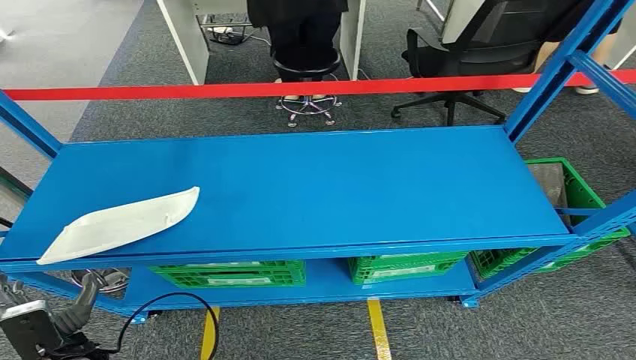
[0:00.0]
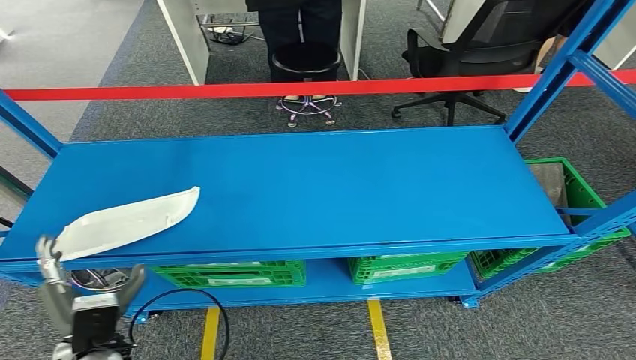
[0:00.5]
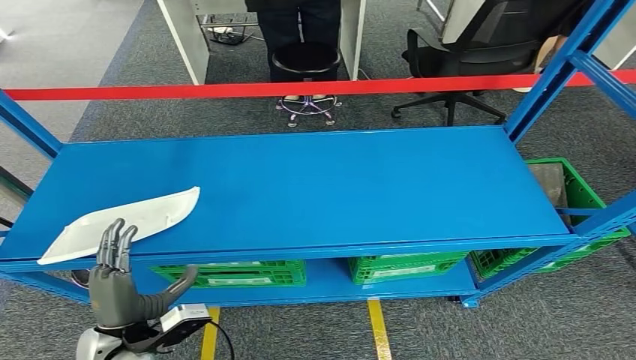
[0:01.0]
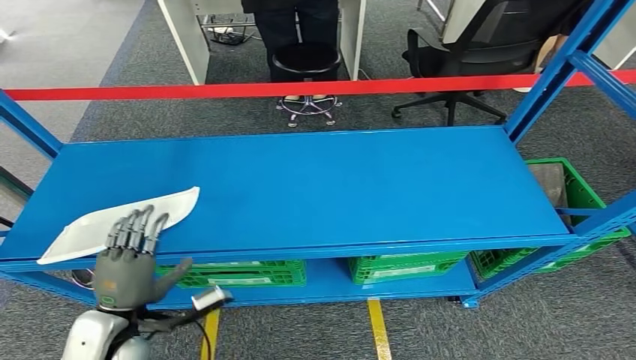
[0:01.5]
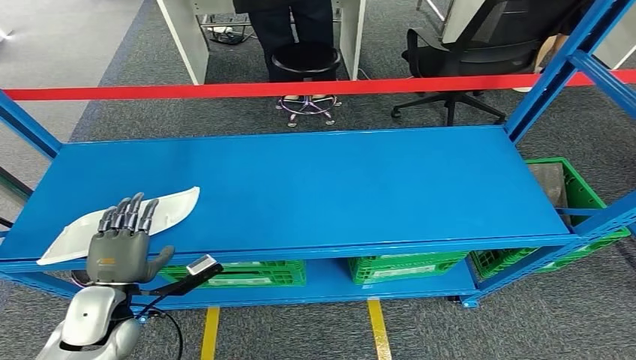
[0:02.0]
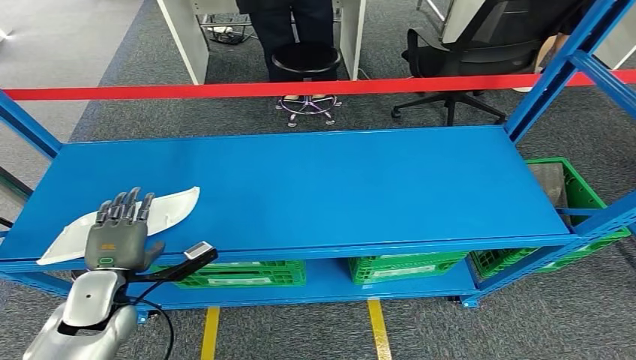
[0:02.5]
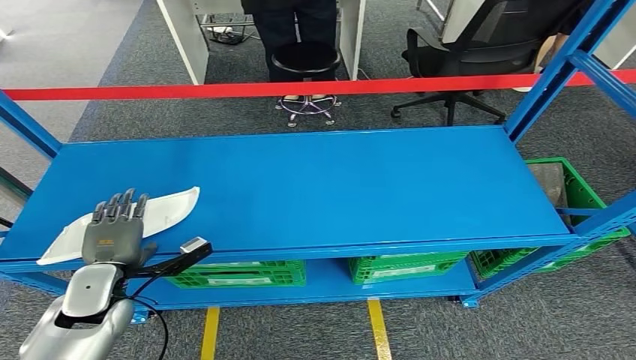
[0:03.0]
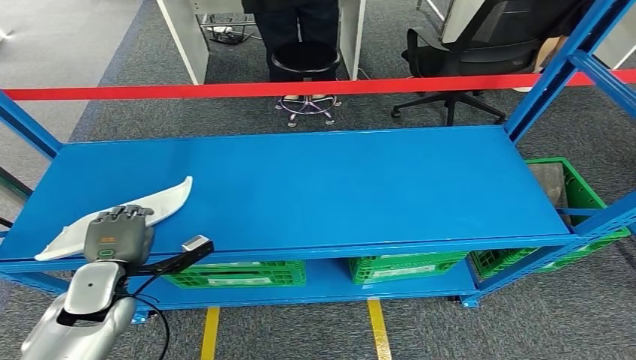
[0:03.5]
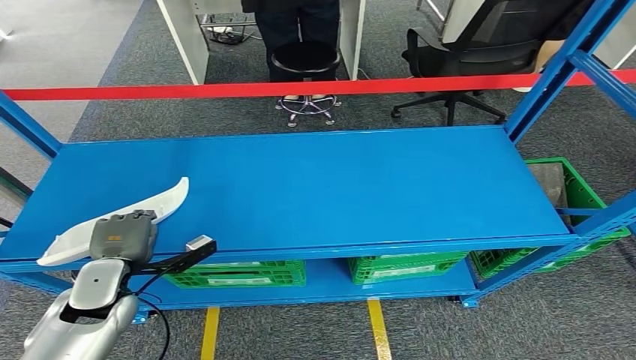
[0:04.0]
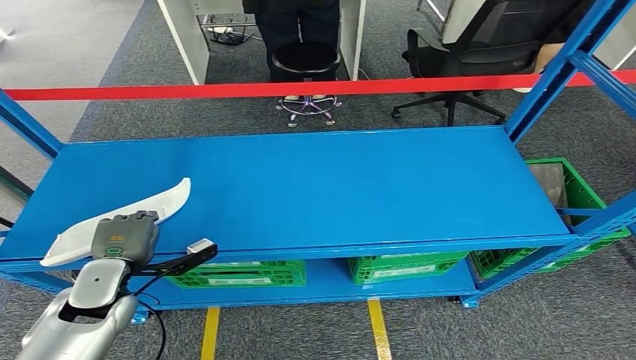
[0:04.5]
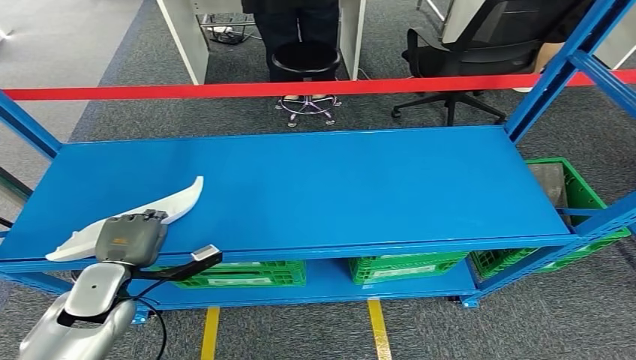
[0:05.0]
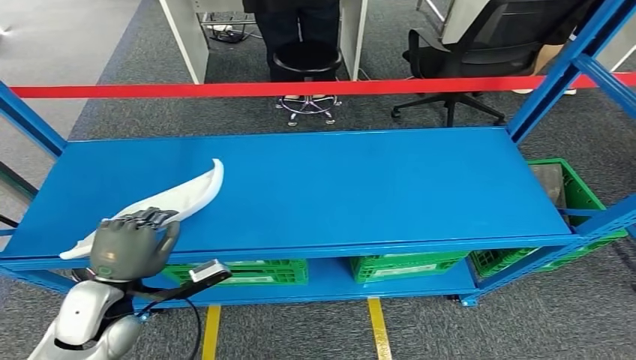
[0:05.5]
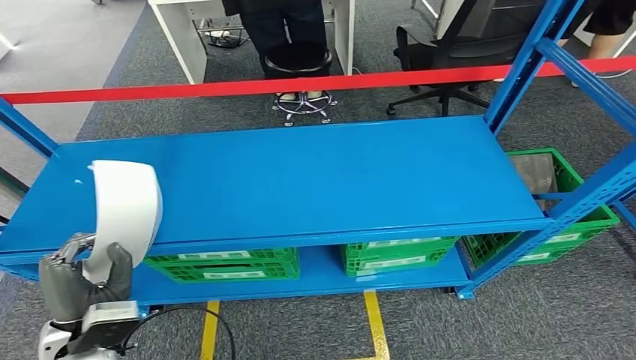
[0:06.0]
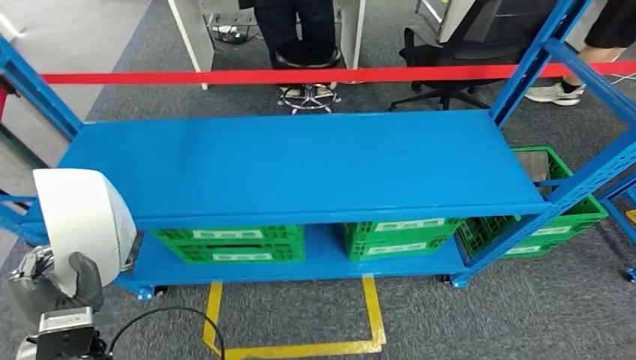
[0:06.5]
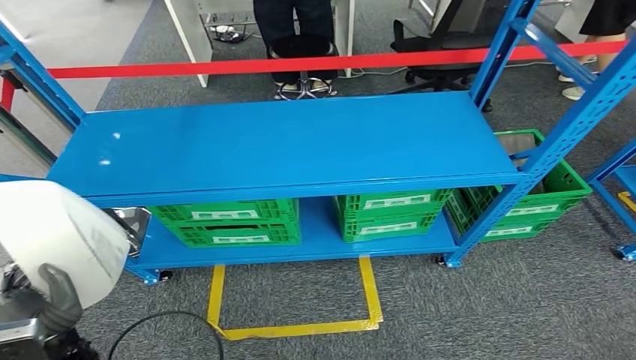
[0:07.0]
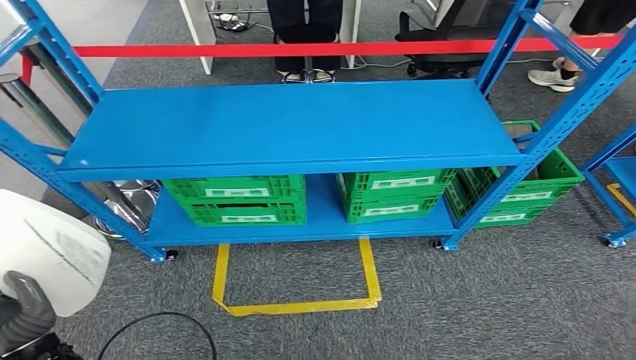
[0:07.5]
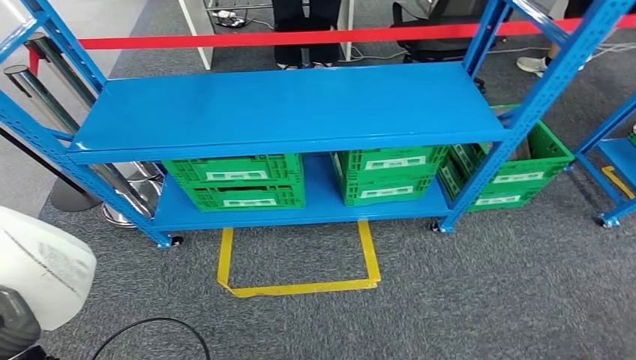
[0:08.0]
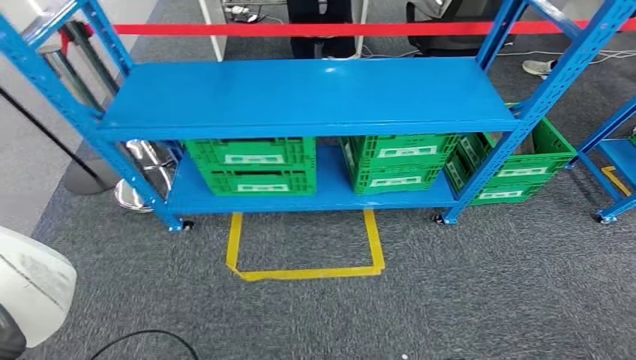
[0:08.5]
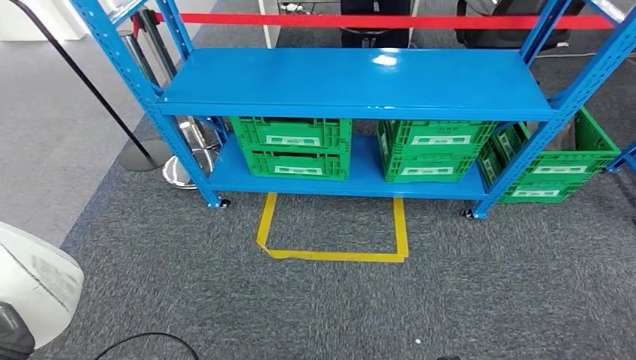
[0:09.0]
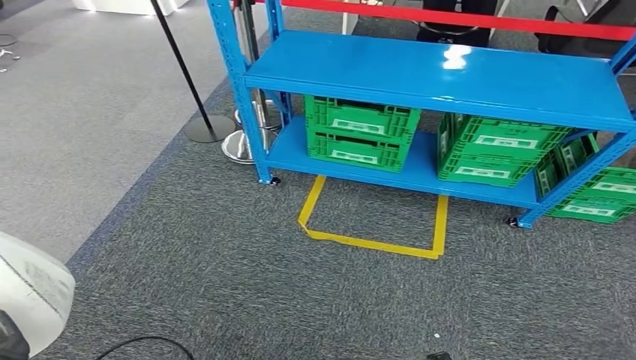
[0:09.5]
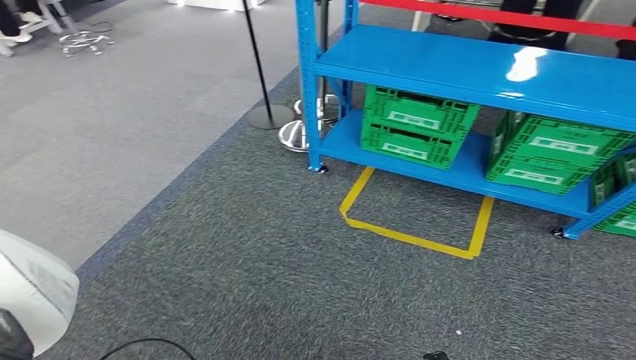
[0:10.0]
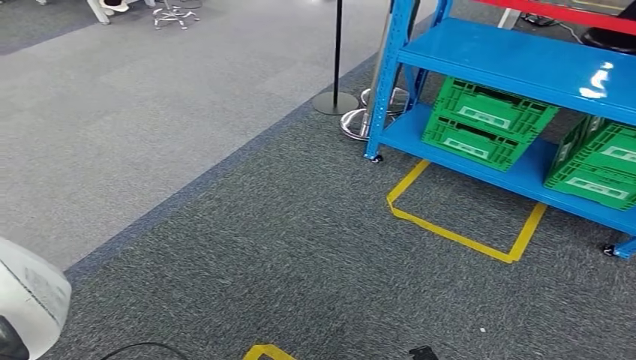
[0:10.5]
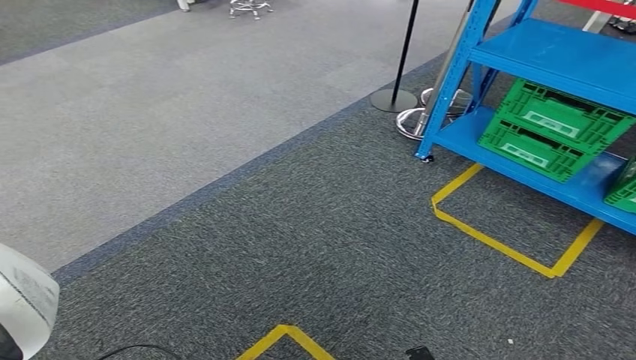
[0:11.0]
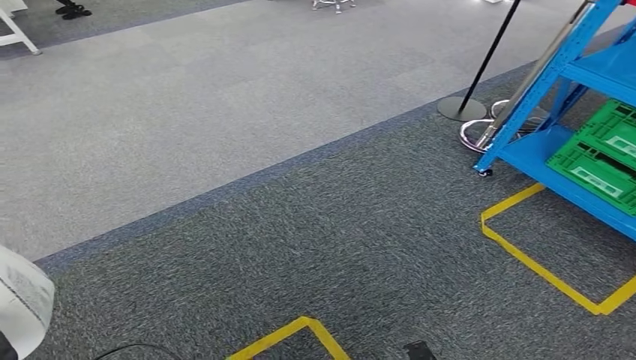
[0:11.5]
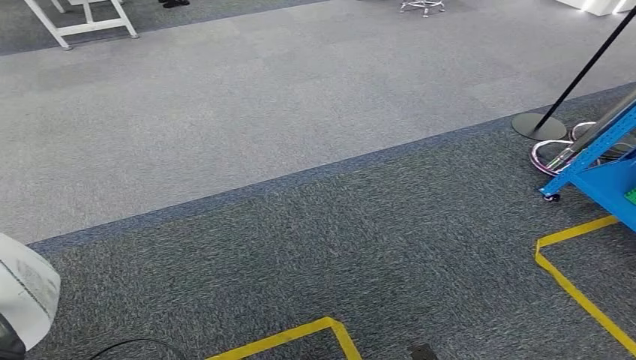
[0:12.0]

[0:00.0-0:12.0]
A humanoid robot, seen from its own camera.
Step, 0:00.0 to 0:06.0: Pick up the small component from the shelf.

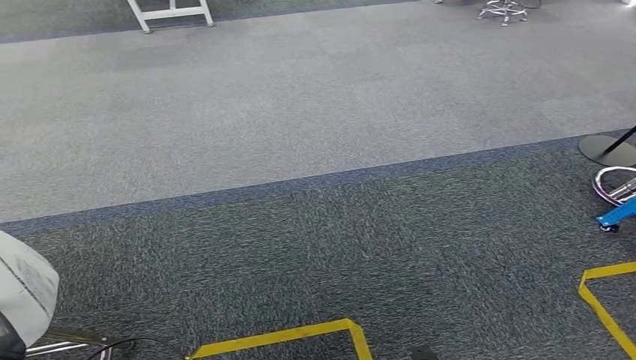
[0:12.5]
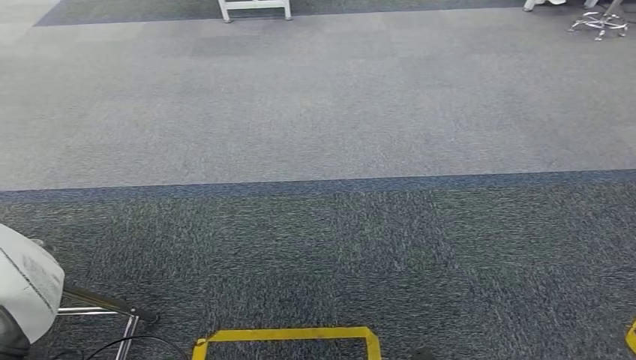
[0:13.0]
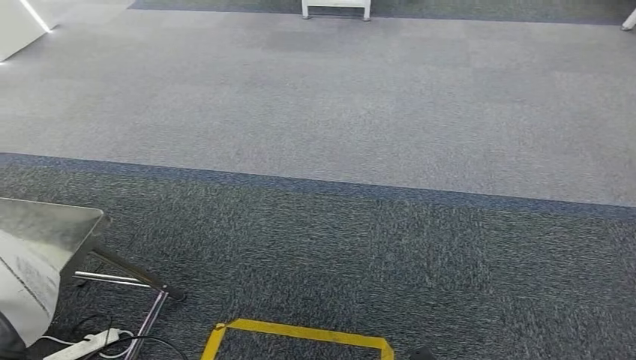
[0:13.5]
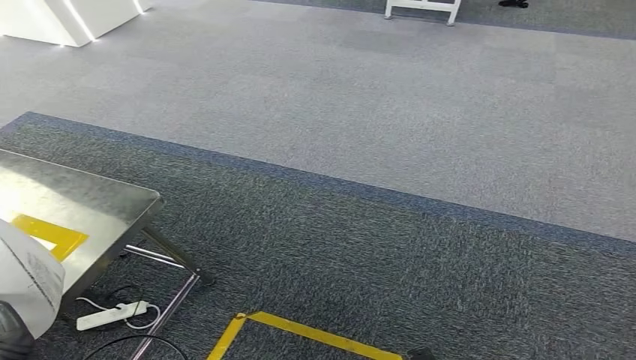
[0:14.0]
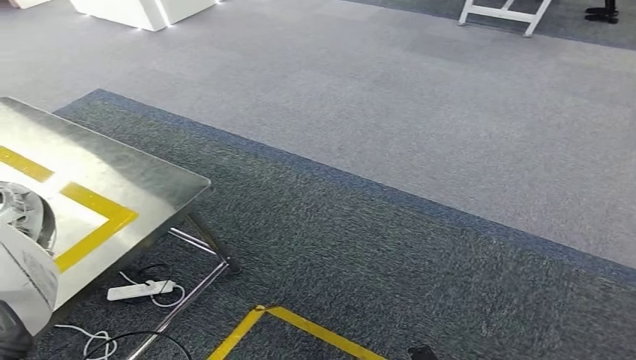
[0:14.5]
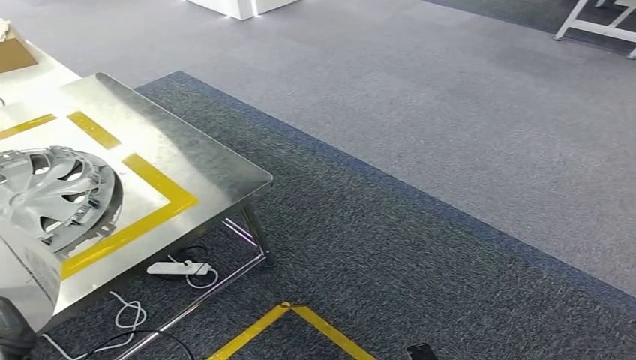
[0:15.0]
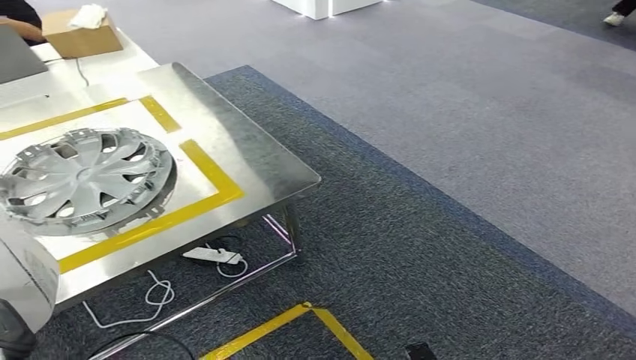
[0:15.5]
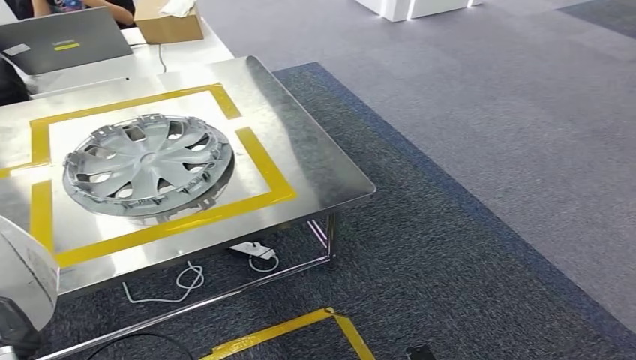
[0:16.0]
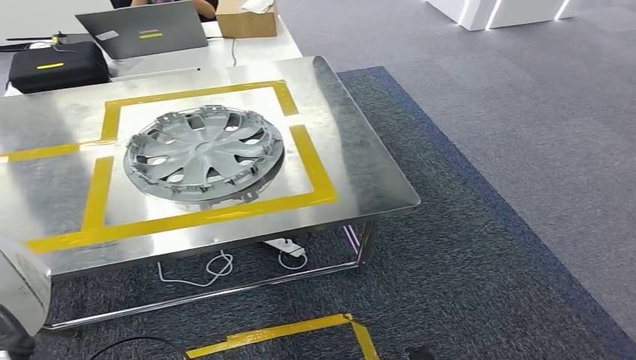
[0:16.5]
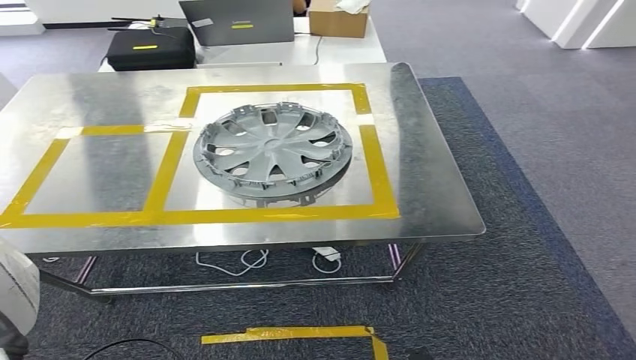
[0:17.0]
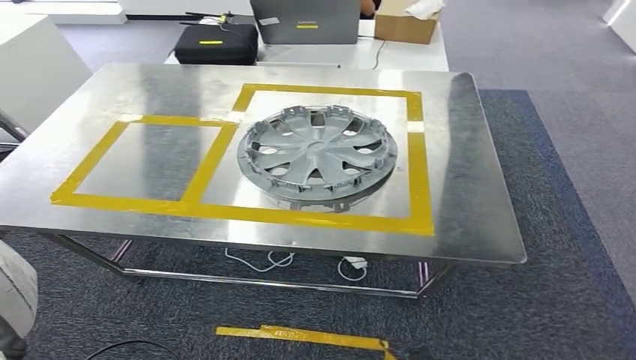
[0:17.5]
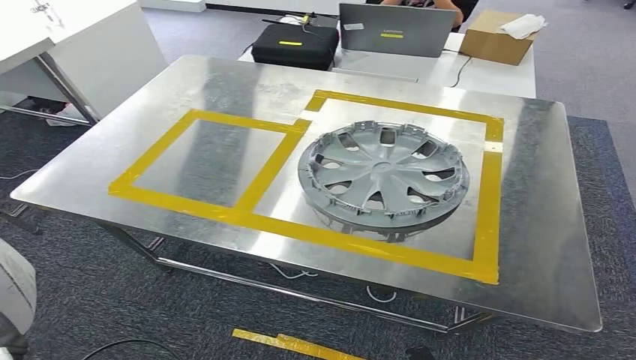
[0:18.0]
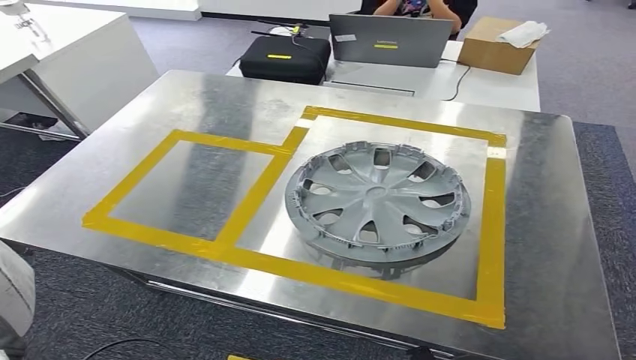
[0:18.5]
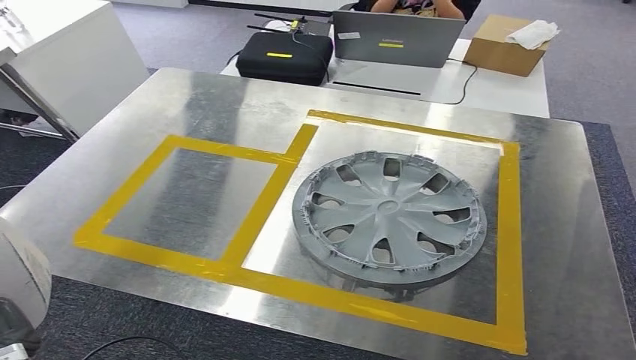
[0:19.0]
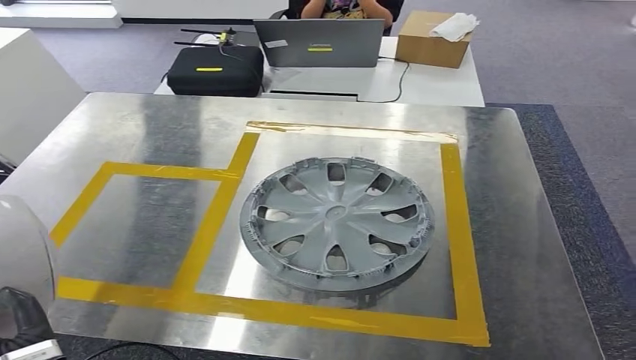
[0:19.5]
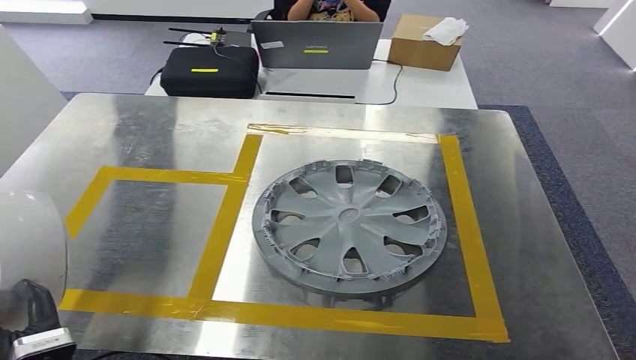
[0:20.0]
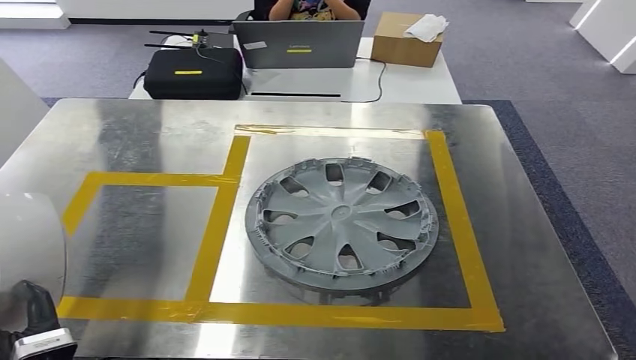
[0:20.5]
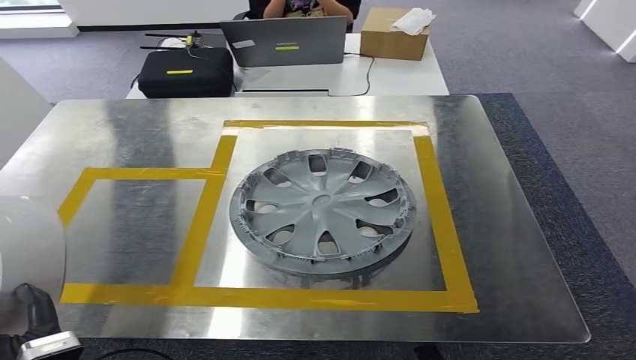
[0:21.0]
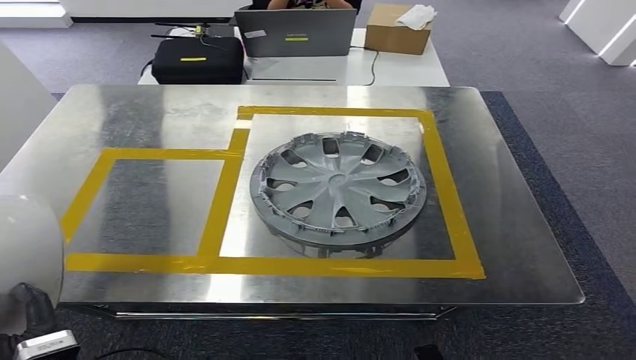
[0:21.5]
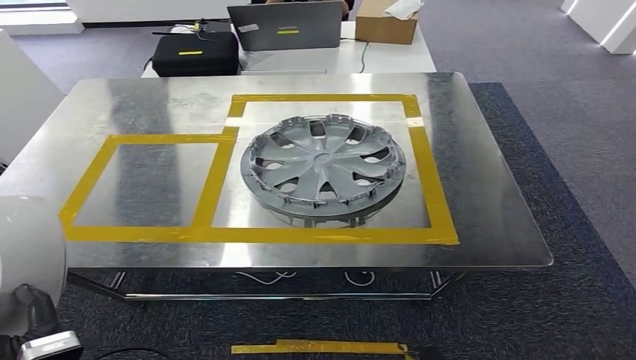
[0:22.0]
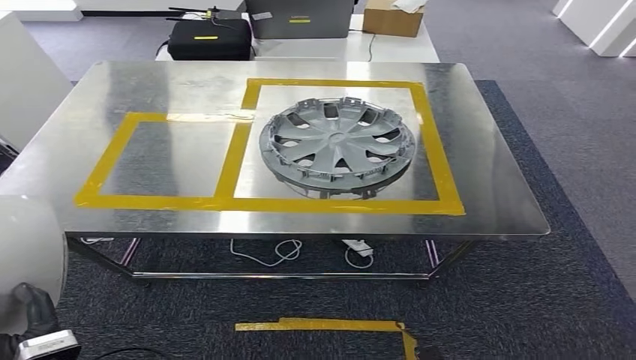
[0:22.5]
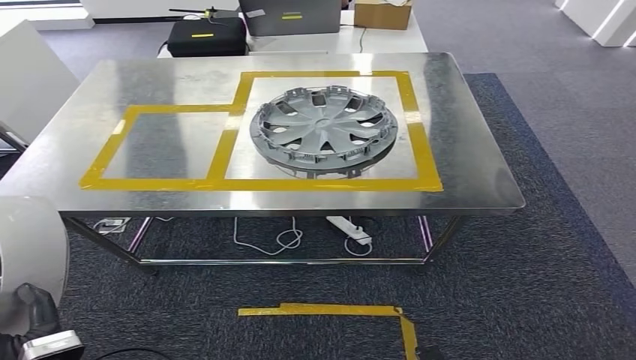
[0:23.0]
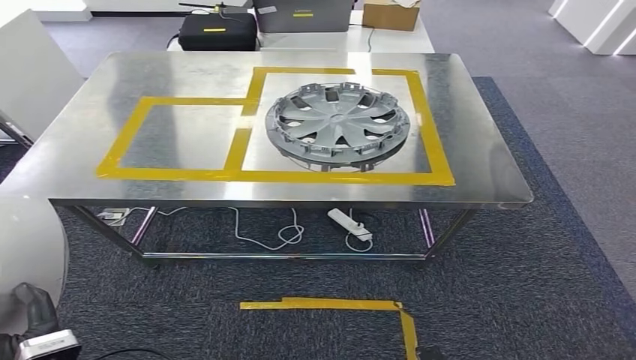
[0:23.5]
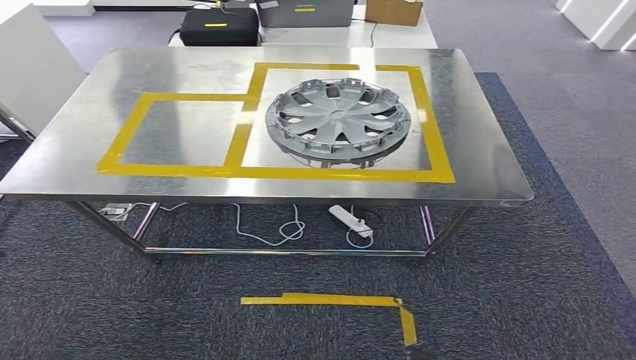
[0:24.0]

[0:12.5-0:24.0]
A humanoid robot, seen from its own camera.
Step, 0:12.5 to 0:19.5: Move the small component to the workbench.
